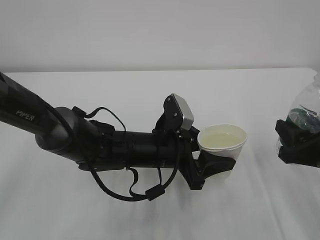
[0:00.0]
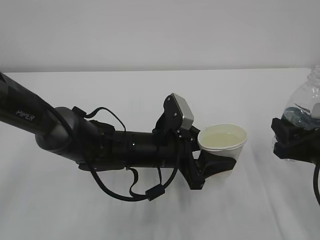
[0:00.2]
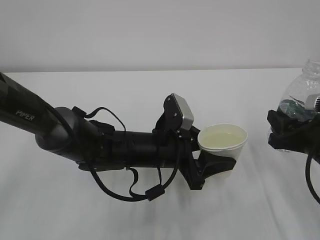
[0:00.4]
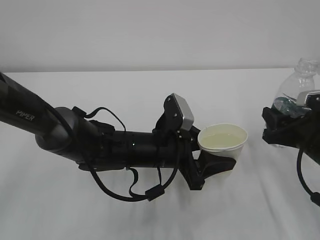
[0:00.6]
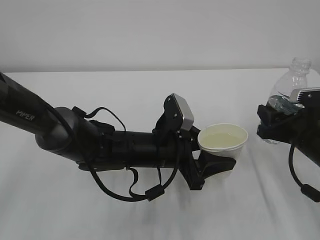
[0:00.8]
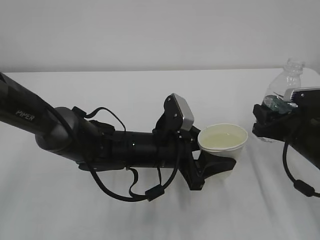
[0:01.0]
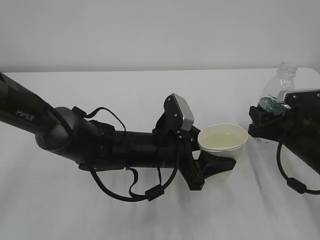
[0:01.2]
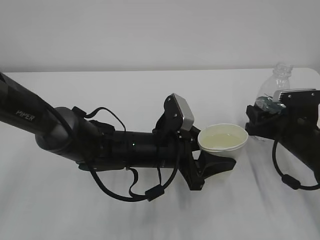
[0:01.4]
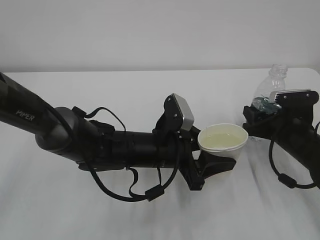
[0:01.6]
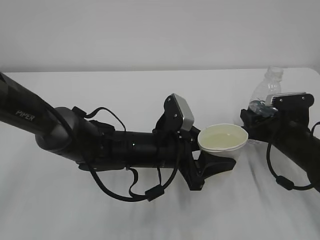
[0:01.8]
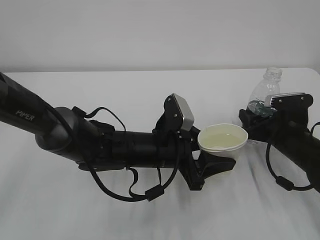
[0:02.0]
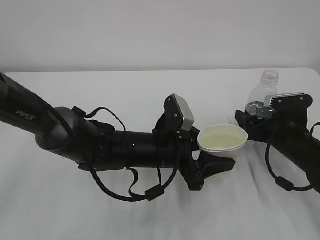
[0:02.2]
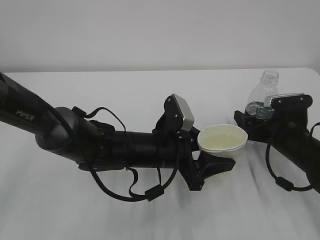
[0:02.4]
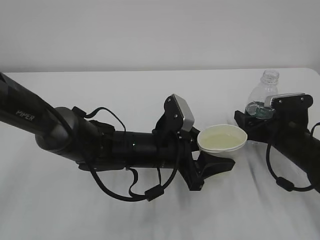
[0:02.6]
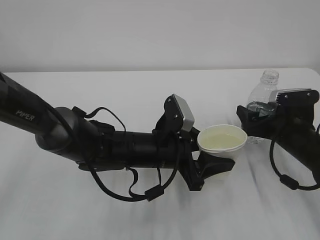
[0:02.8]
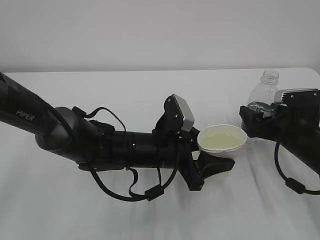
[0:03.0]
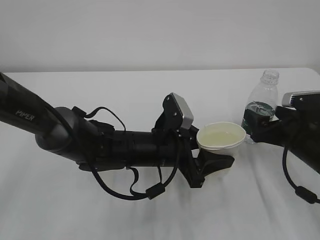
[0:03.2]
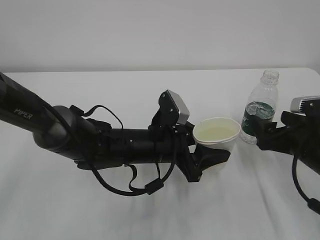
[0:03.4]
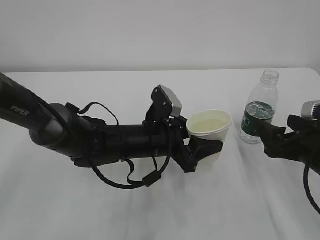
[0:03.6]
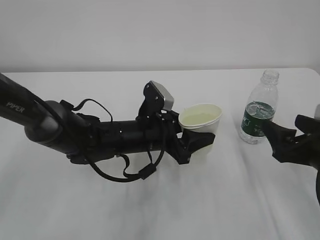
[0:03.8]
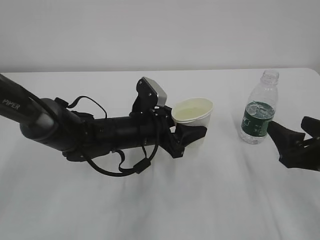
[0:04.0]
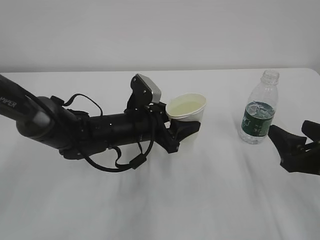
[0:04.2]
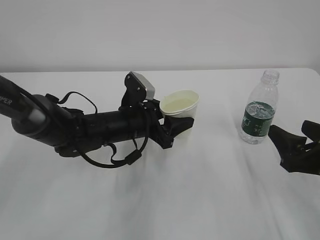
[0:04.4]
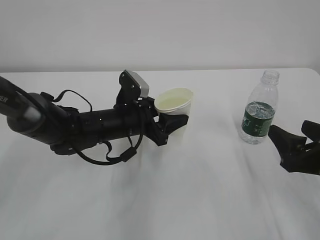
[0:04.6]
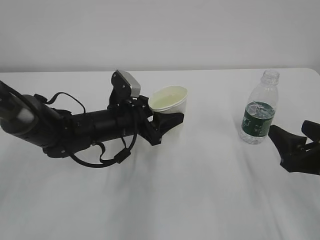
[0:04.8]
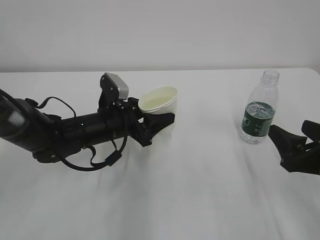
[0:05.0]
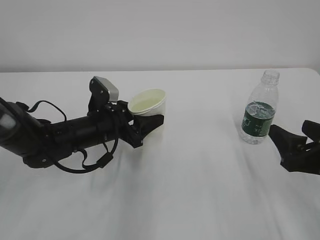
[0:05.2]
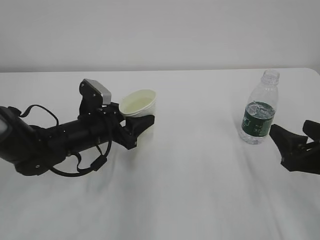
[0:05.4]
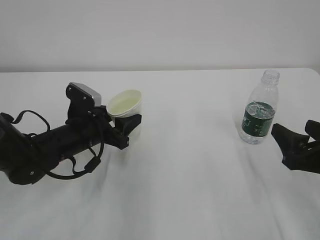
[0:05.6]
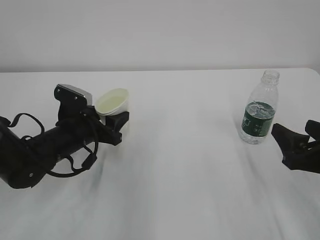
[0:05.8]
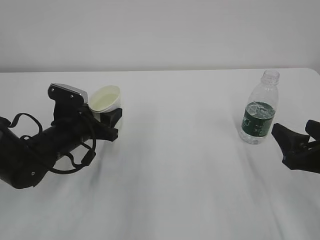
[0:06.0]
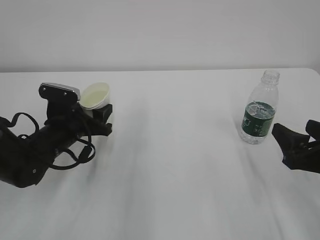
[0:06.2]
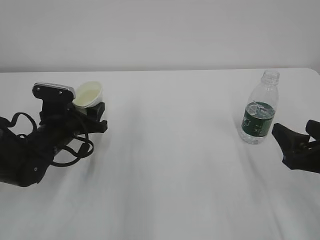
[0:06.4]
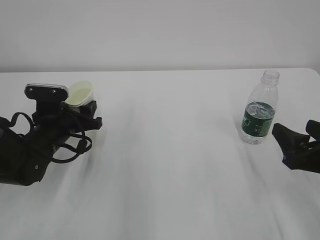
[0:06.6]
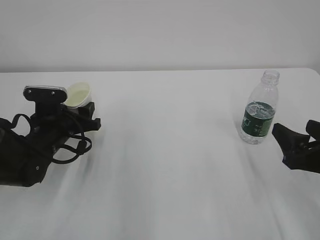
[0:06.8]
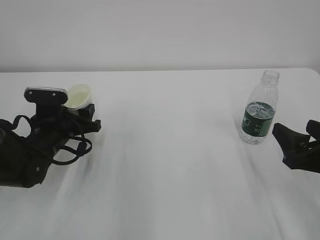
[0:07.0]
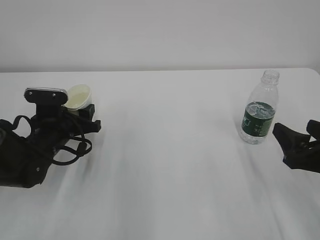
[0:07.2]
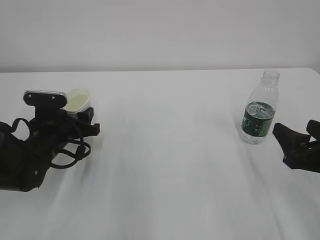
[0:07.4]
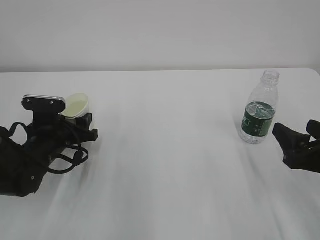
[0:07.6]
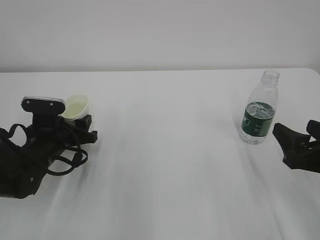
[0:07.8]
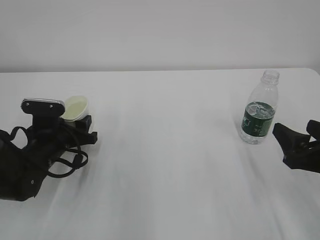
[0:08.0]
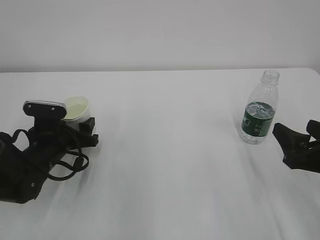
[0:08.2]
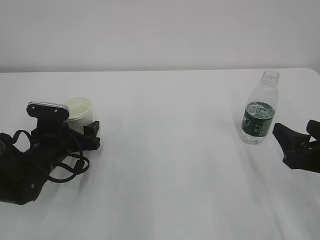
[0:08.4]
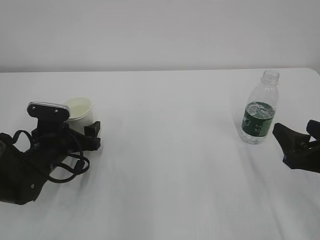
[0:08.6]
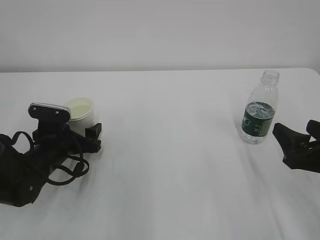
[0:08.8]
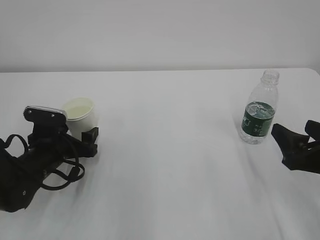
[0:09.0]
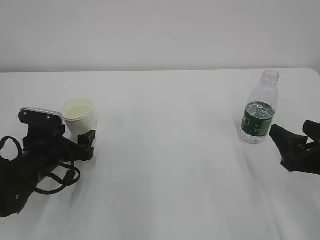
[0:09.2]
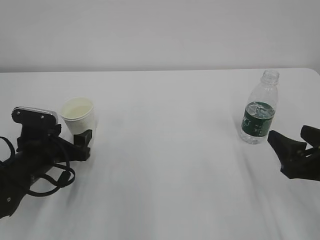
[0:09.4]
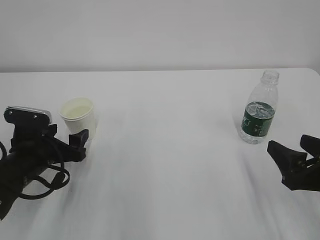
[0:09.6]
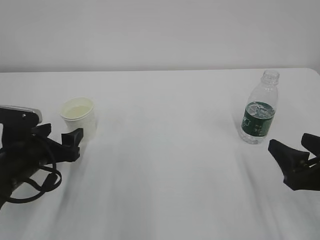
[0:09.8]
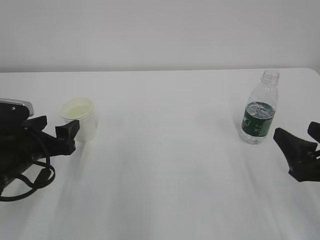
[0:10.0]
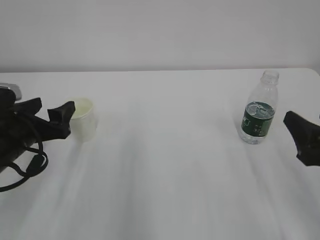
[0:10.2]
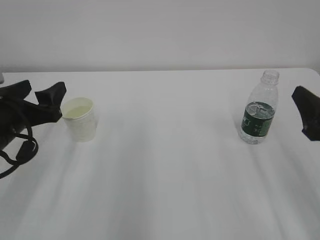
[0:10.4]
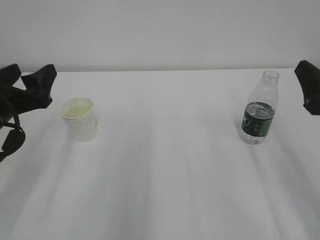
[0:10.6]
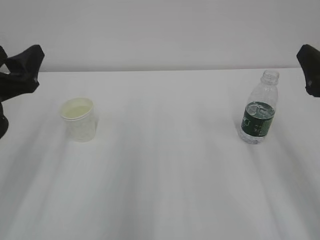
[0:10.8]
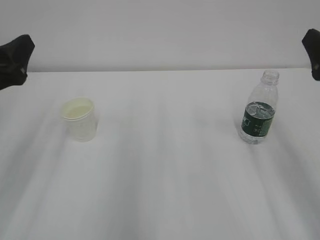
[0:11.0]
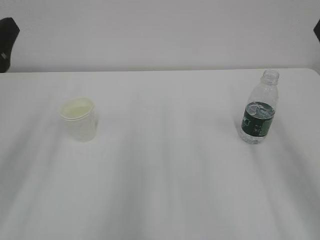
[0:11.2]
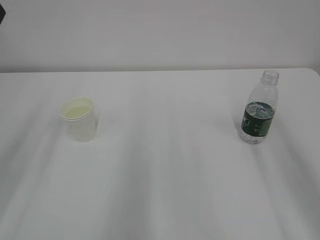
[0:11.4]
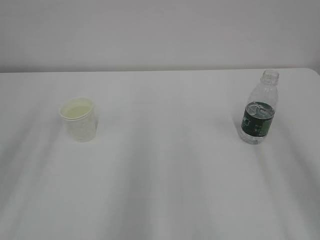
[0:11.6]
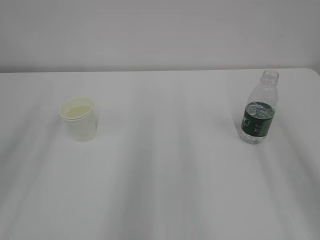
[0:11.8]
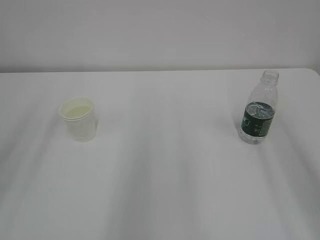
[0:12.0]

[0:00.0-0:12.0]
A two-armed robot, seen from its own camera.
0:00.0 to 0:01.6: The right gripper shifts roughly 10 cm forward and downward.
0:01.6 to 0:03.0: The right gripper opens its fingers.
0:03.0 to 0:04.4: The left gripper shifts roughly 10 cm forward and to the left. Meanwhile the right gripper moves backward, some 10 cm.
0:04.4 to 0:06.0: The left gripper moves to the left, about 10 cm.
0:07.6 to 0:09.0: The left gripper opens its fingers.
0:09.0 to 0:10.4: The left gripper heads upward and backward, covering approximately 15 cm.
0:10.4 to 0:12.0: The right gripper shifts approximately 15 cm upward; the left gripper moves upward and backward, about 20 cm.

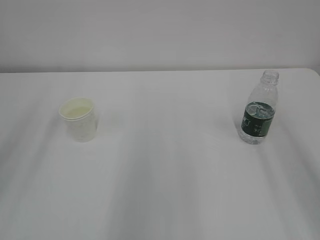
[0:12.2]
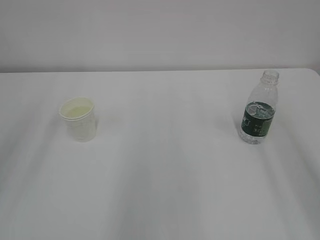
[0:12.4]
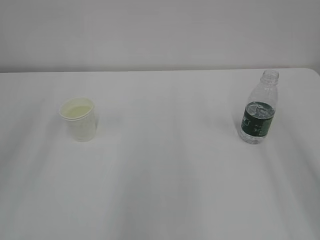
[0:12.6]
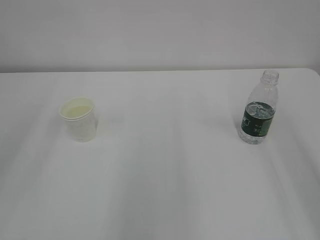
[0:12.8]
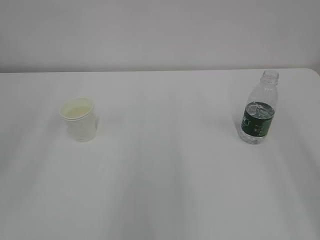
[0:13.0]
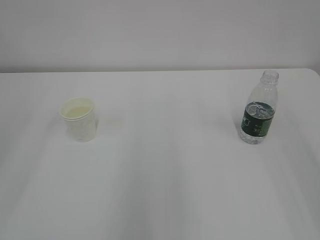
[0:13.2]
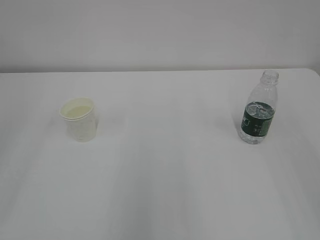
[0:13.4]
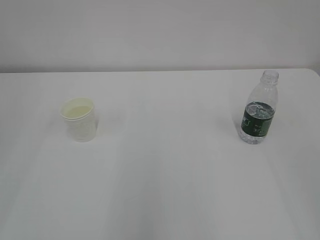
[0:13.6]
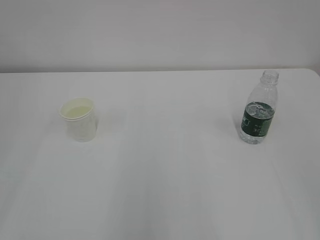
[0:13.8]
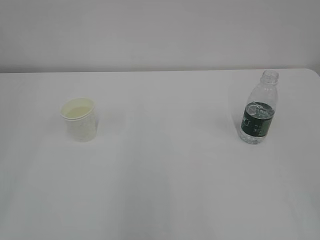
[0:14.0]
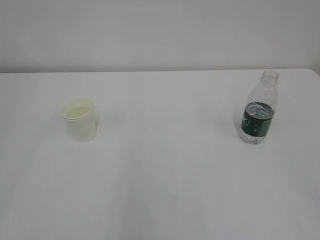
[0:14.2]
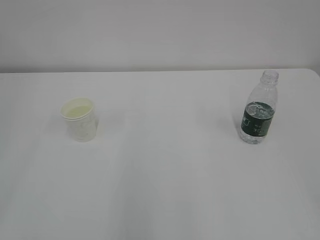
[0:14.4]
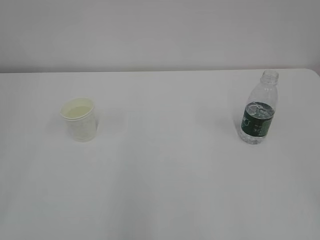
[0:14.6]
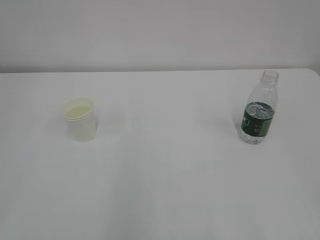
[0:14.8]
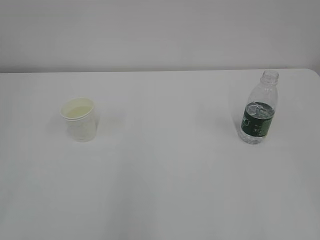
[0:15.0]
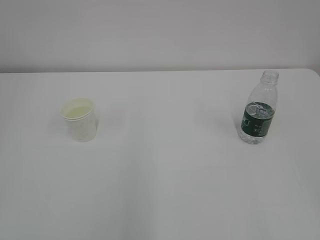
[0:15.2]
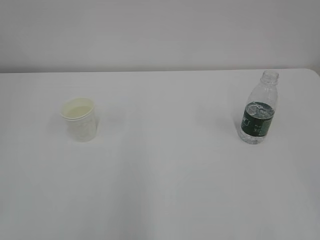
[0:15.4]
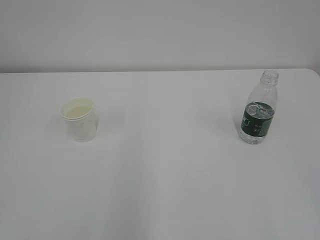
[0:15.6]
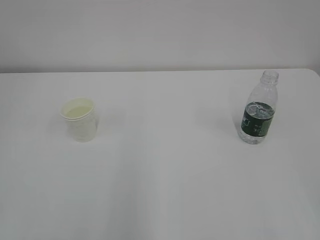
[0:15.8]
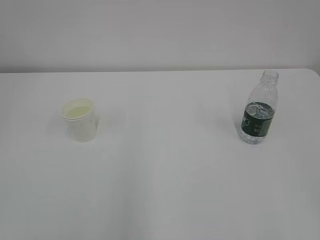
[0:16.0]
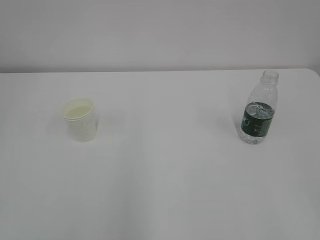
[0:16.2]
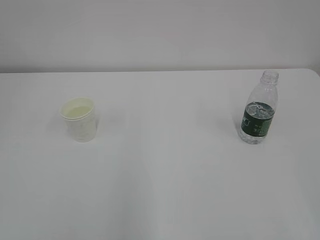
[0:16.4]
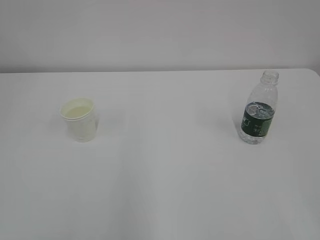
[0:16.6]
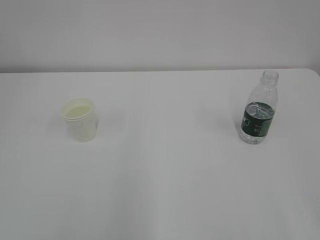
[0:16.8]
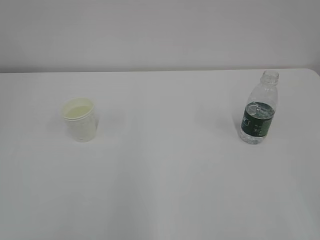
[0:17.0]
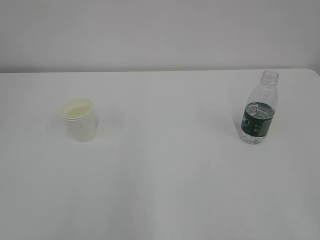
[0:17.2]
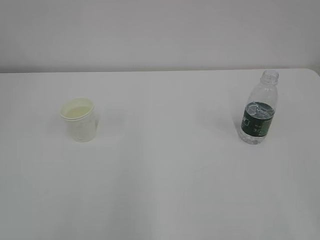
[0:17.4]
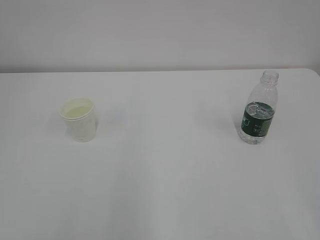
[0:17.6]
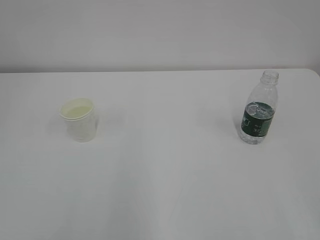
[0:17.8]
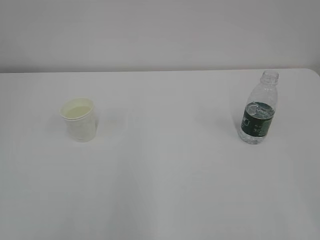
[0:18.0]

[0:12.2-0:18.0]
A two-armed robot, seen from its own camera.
0:16.6 to 0:18.0: Both grippers stay about where they are.
